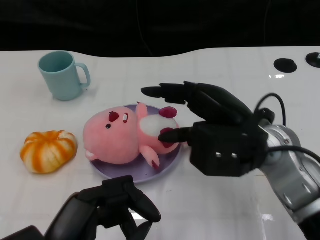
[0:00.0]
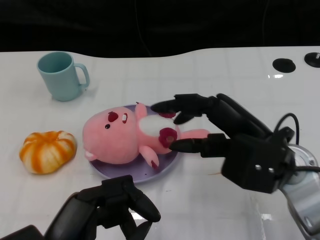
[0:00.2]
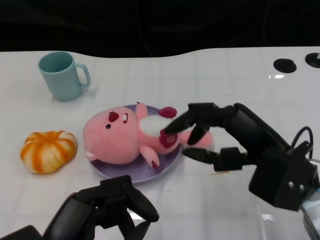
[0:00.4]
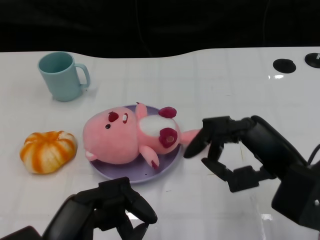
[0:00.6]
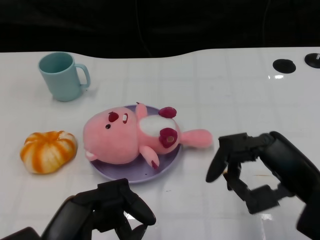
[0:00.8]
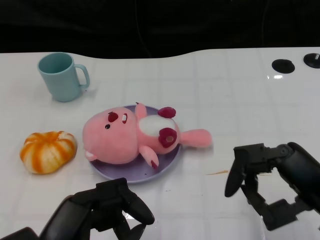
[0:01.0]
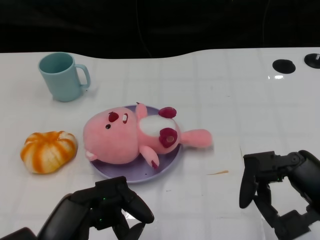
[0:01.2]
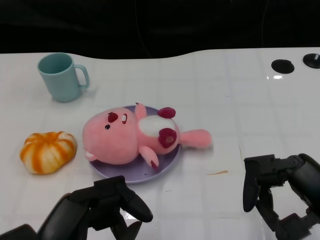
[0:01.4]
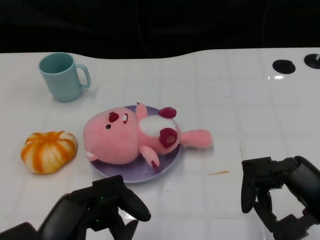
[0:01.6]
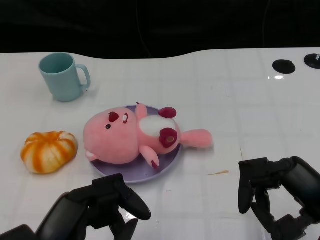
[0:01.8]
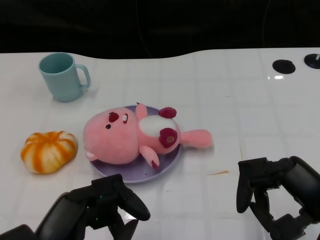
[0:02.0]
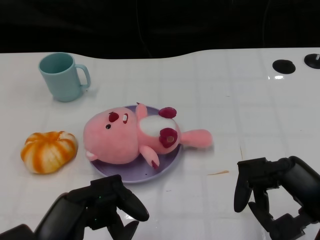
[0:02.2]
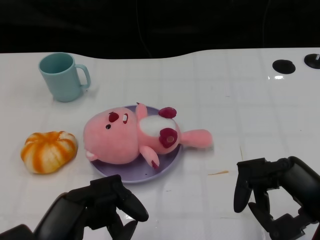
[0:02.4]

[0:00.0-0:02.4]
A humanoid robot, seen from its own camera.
Task of the whole recording: Pick up the doll on the other side of the plate and place it into the plate.
0:00.0 to 0:01.2: The right hand shifts about 15 cm backward and to the right.
0:01.2 to 0:02.4: The hands move only a little.
